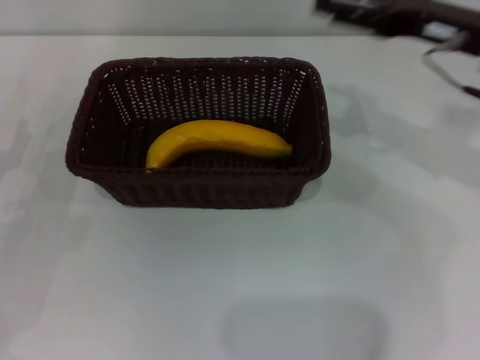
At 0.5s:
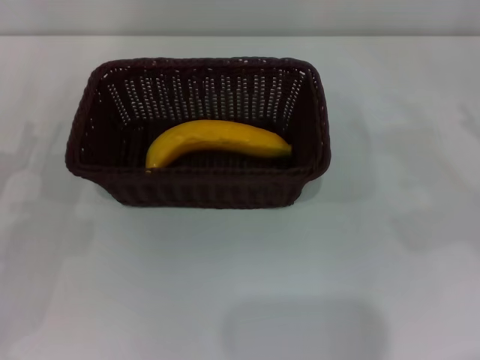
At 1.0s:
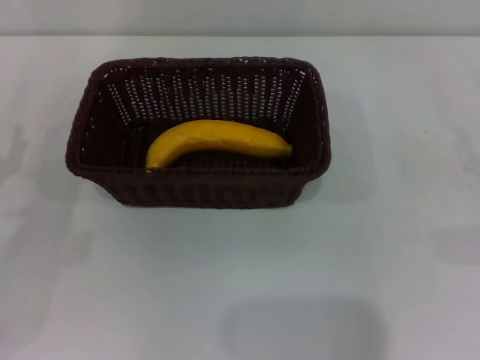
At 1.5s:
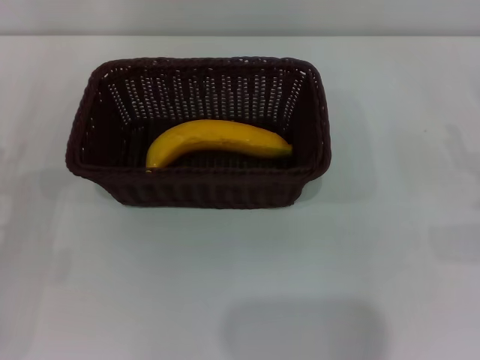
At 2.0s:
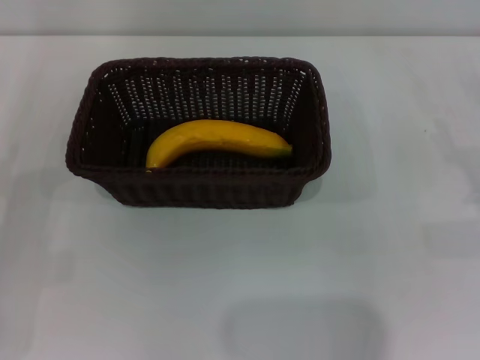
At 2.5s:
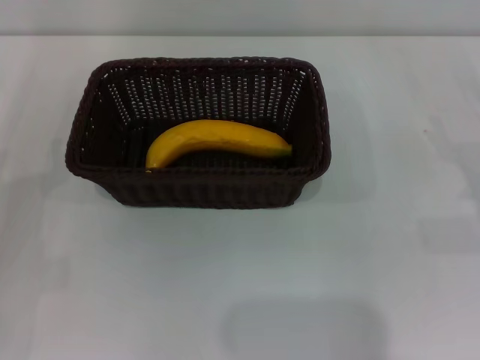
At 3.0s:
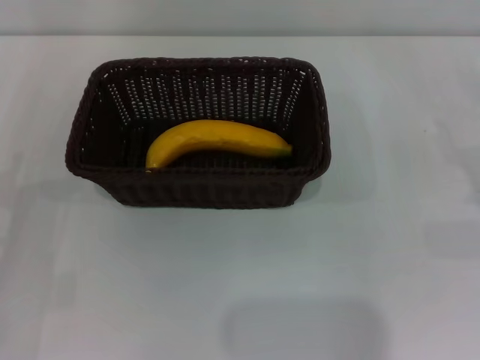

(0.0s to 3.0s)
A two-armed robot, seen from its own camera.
0.0s - 1.5s: The right gripper goes roughly 25 cm downward, to the right and backward.
